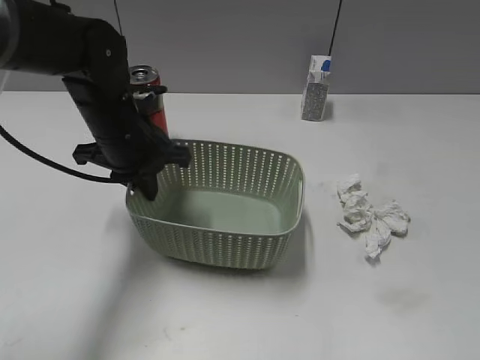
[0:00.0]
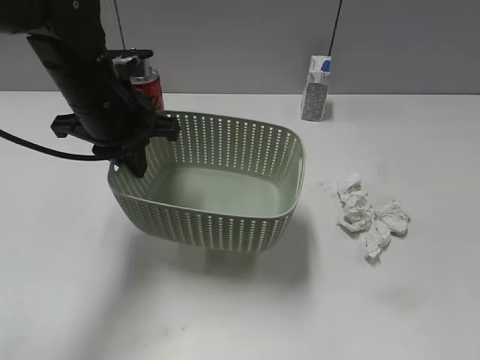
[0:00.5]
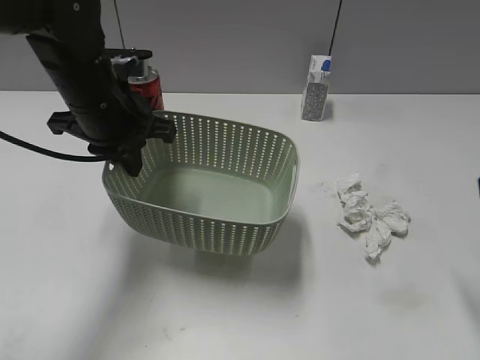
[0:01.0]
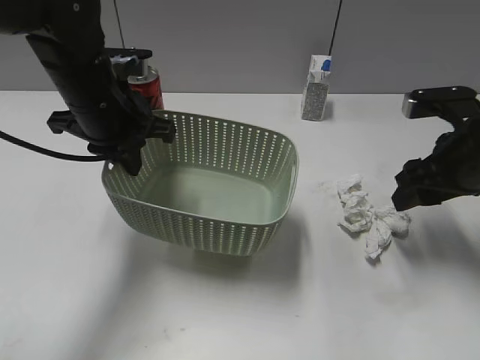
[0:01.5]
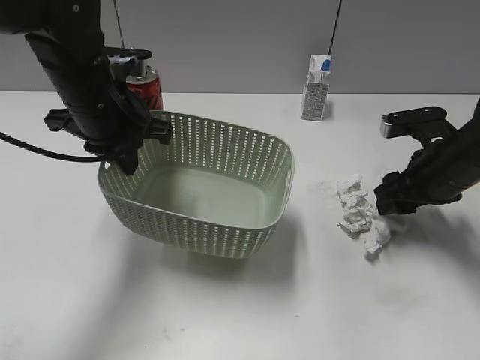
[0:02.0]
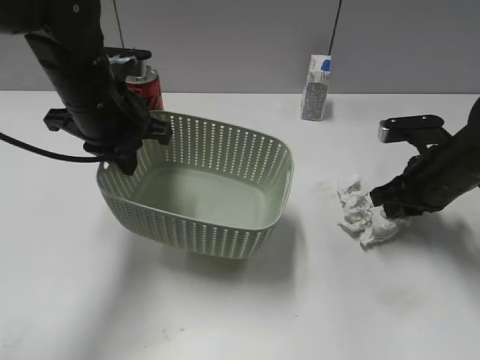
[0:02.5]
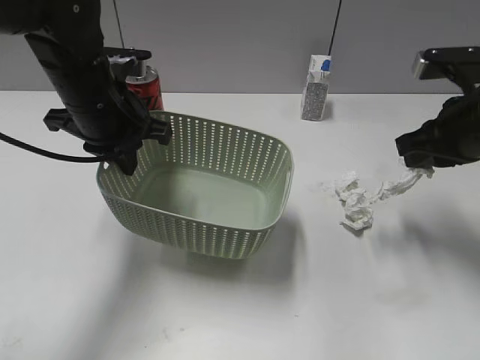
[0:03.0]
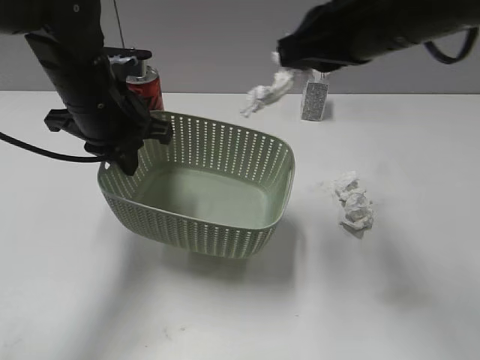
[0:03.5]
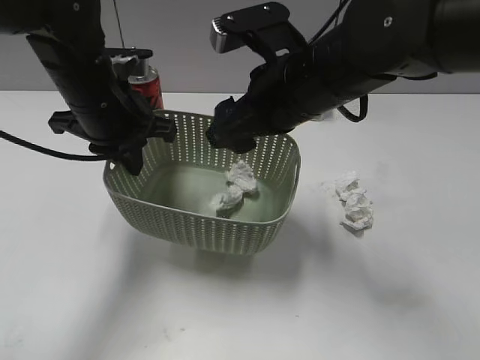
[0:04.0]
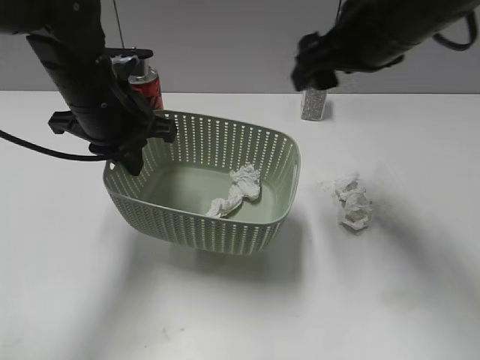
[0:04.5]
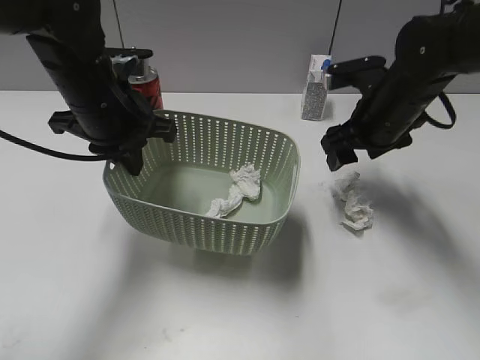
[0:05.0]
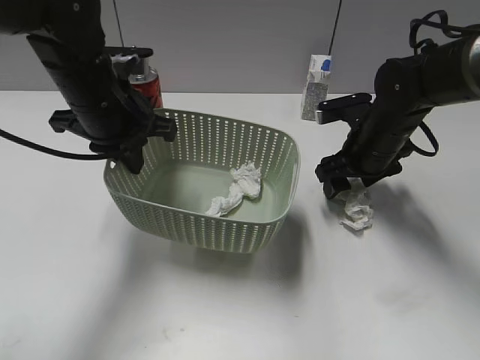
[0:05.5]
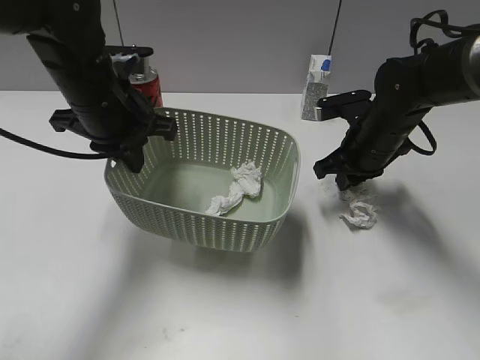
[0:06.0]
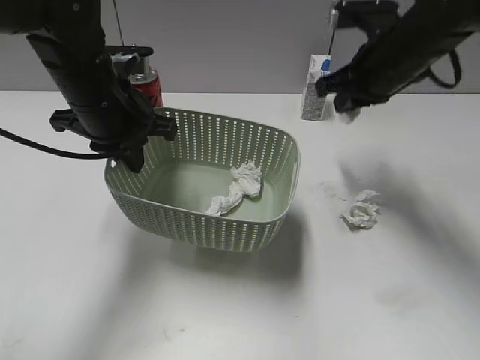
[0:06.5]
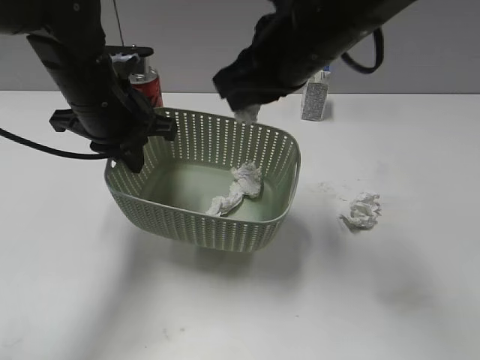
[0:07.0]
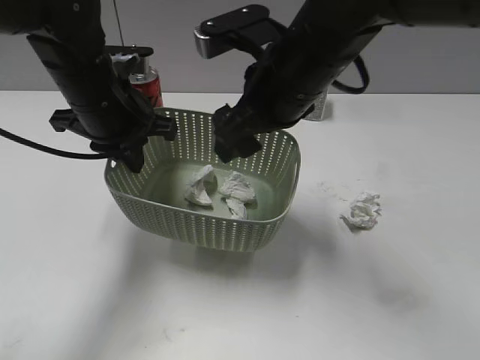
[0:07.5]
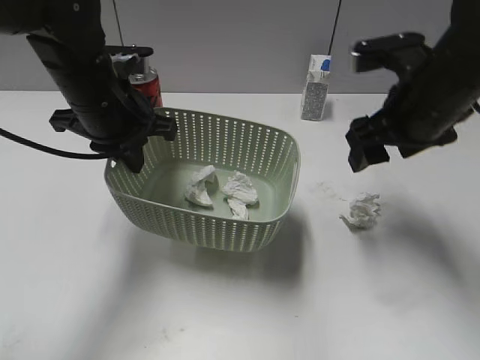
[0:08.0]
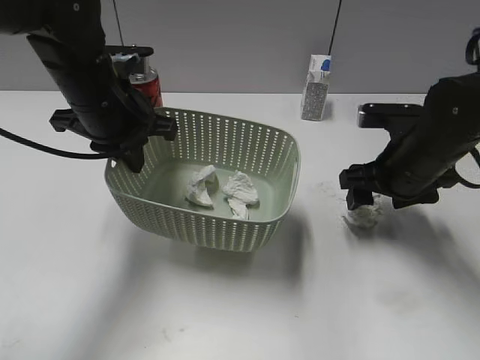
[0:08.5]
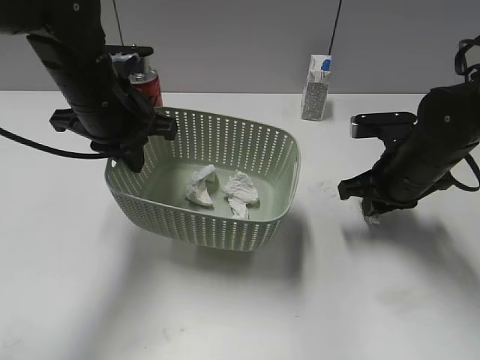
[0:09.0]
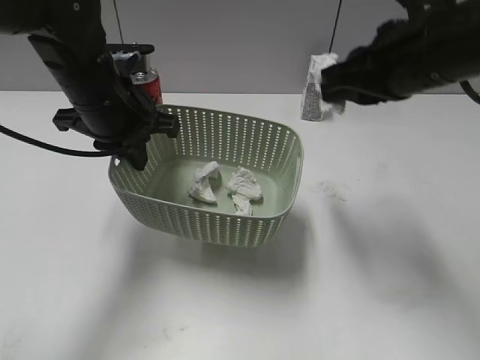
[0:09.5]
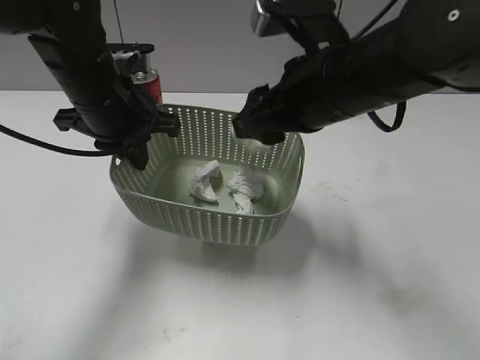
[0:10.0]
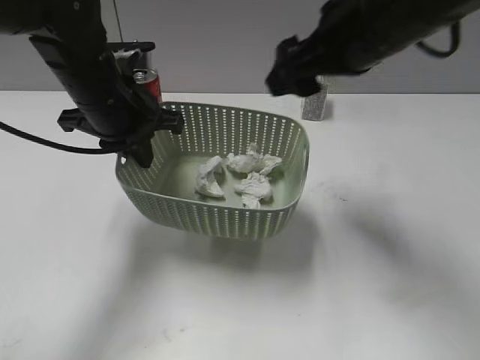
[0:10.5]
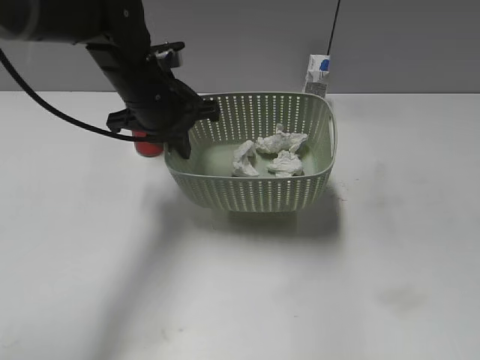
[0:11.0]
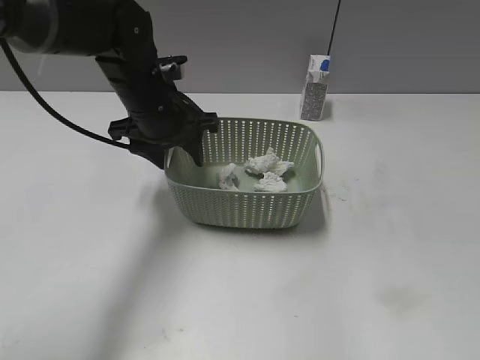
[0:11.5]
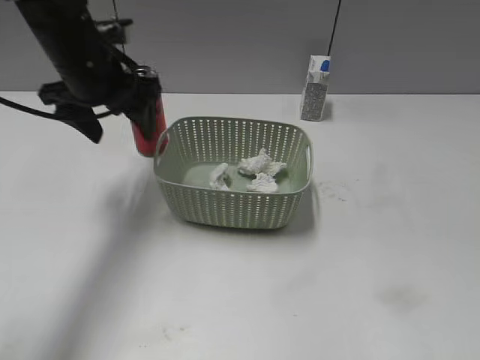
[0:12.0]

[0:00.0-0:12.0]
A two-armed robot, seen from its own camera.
Step, 0:01.0 to 0:02.5: Grasp the waste paper with right gripper.
Step, 0:03.0 to 0:04.0: Place the waste paper in the basket with right gripper.
Step, 0:04.5 to 0:06.0: Grasp the waste paper with right gripper.
Step, 0:06.5 to 0:07.5: Place the waste paper in the basket with right gripper.
Step, 0:08.0 to 0:09.0: Grasp the waste paper with right gripper.
Step, 0:09.5 to 0:10.0: Place the waste paper in the basket with right gripper.
Step, 0:10.5 to 0:12.0: Place the basket on the table with left gripper.
0:00.0 to 0:02.0: The right gripper heads forward and downward, covering some 35 cm, while the left gripper shifts by some 5 cm.
0:02.0 to 0:04.0: The right gripper moves to the left and upward, roughly 20 cm, and closes and opens again.
0:04.0 to 0:06.0: The right gripper is displaced downward, to the right and forward by about 20 cm, and closes up.
0:06.0 to 0:08.0: The right gripper heads upward and backward, covering about 15 cm, and opens.
0:08.0 to 0:10.0: The right gripper moves to the left, approximately 10 cm, travels downward and back again, roughly 10 cm each way, and closes, then opens again.
0:10.0 to 0:12.0: The right gripper is displaced to the right, upward and backward by approximately 30 cm. Meanwhile the left gripper ends up some 5 cm from where it was, and opens up.

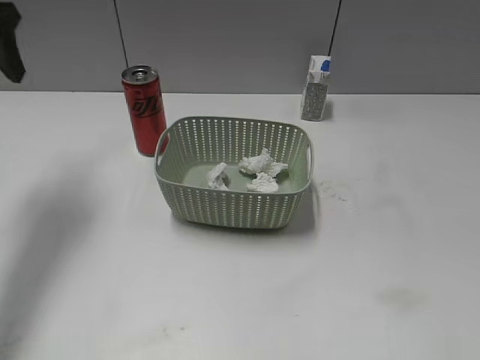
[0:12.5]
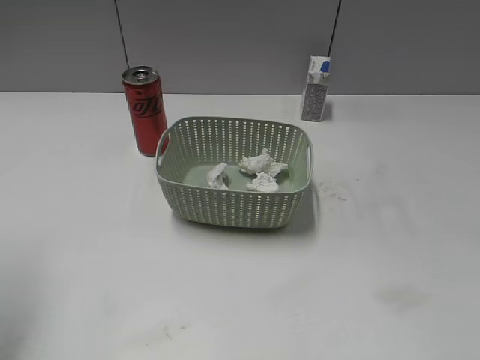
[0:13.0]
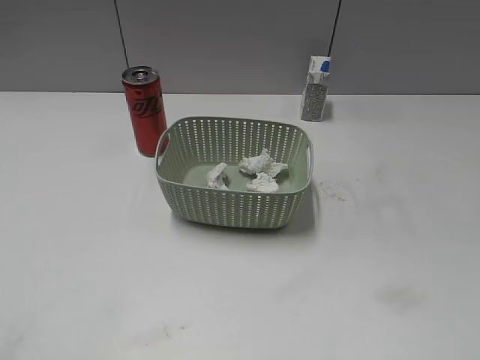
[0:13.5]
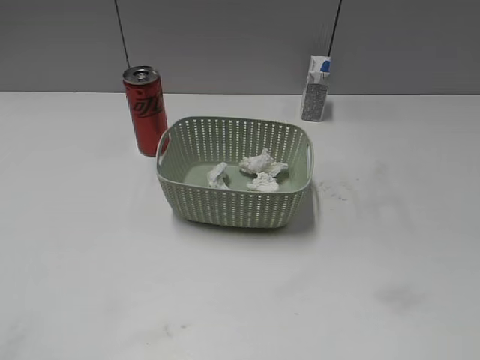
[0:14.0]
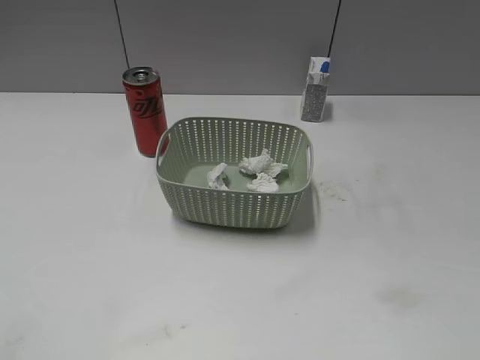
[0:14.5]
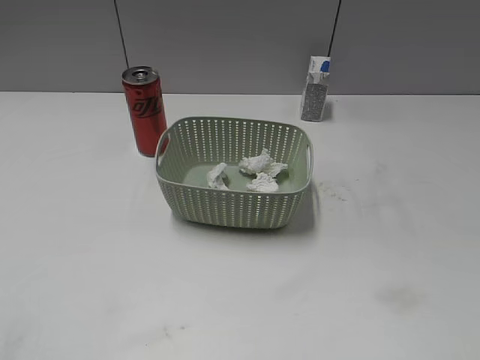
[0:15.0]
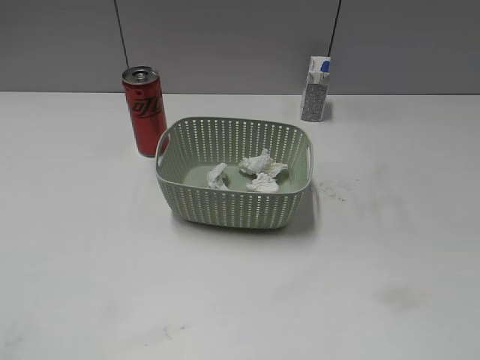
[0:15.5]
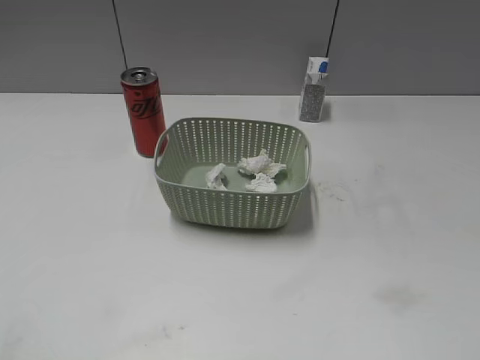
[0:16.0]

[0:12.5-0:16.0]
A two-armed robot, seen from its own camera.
0:12.5 to 0:14.5: The left gripper moves backward, about 35 cm.
0:14.5 to 0:16.0: Both grippers stay about where they are.
